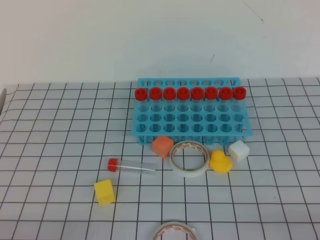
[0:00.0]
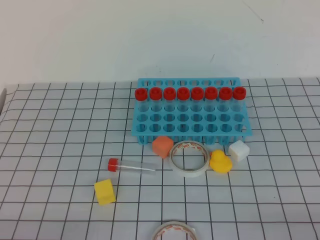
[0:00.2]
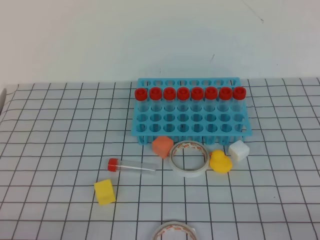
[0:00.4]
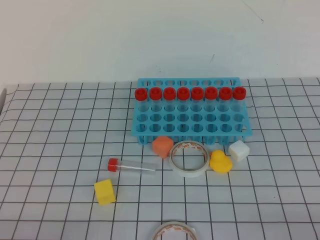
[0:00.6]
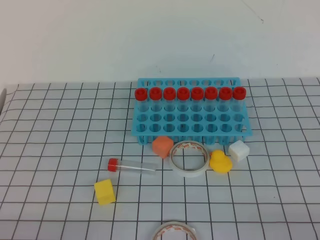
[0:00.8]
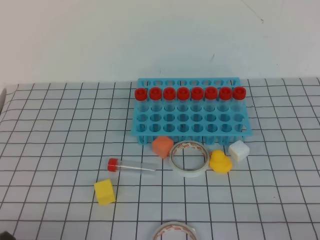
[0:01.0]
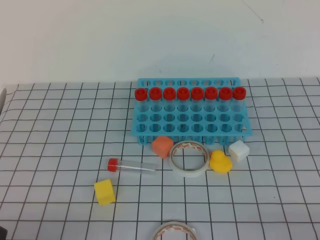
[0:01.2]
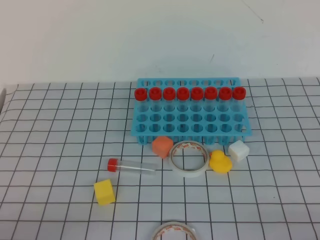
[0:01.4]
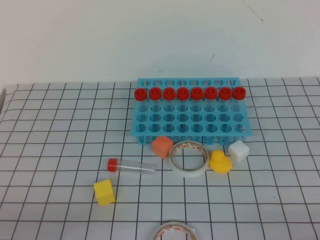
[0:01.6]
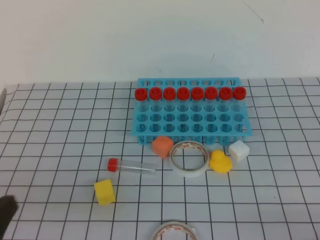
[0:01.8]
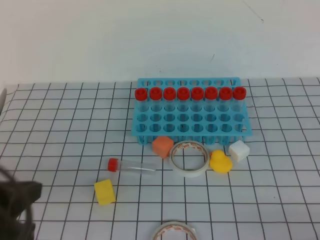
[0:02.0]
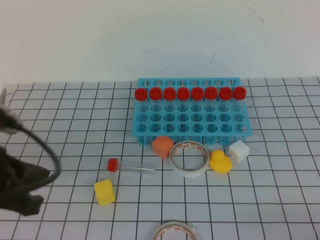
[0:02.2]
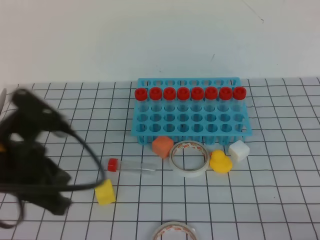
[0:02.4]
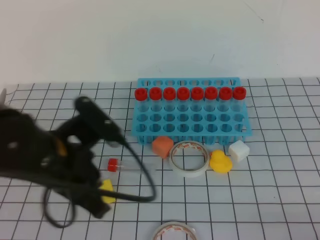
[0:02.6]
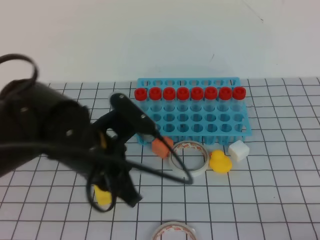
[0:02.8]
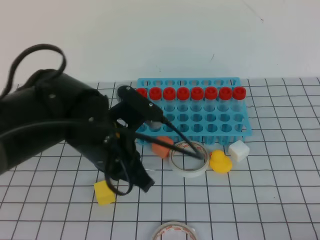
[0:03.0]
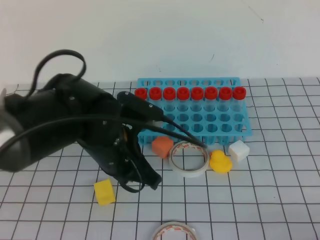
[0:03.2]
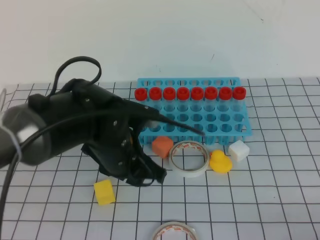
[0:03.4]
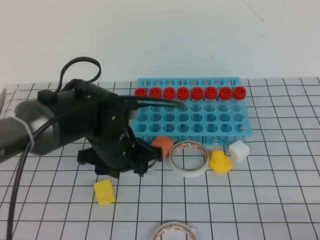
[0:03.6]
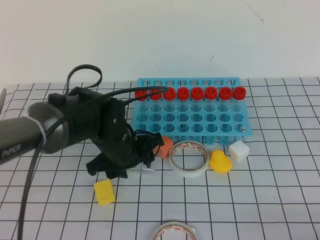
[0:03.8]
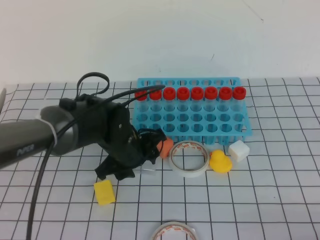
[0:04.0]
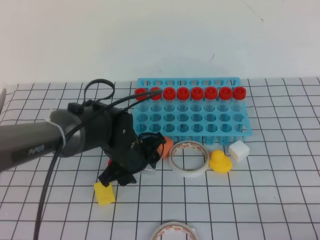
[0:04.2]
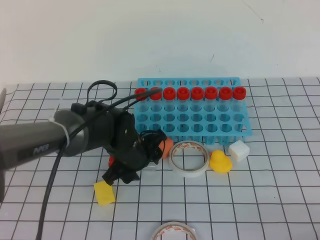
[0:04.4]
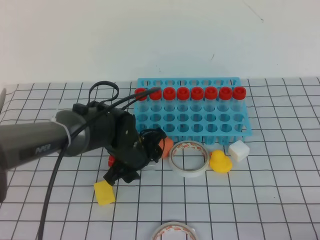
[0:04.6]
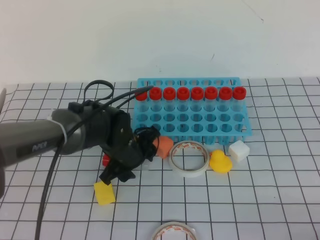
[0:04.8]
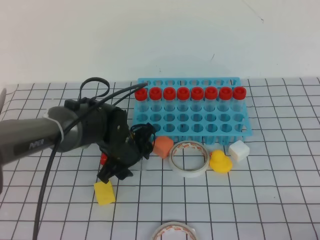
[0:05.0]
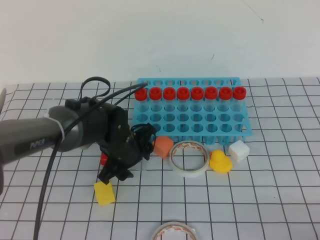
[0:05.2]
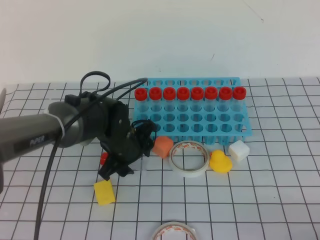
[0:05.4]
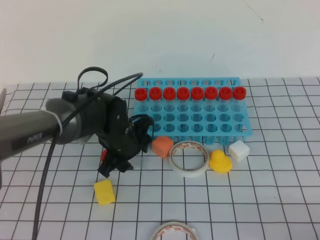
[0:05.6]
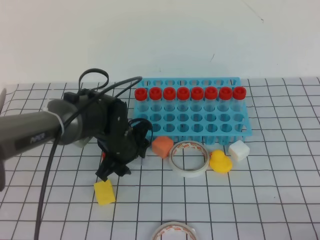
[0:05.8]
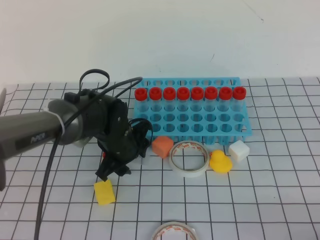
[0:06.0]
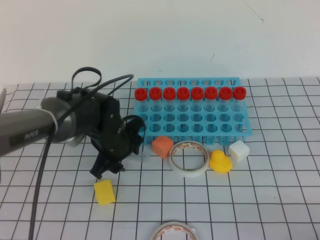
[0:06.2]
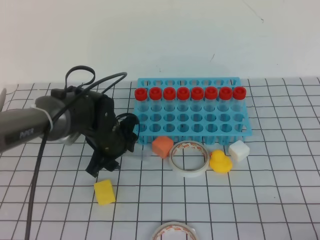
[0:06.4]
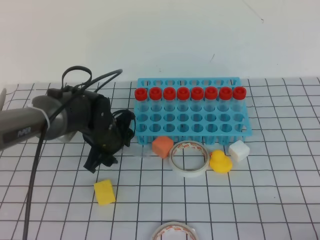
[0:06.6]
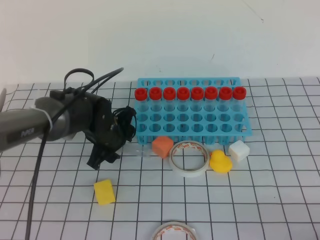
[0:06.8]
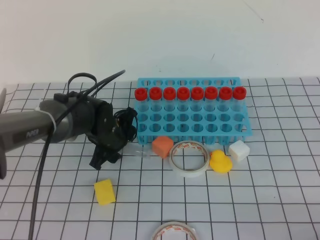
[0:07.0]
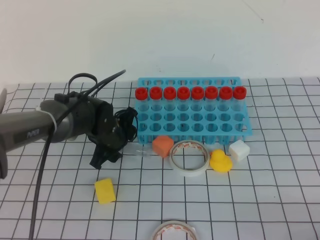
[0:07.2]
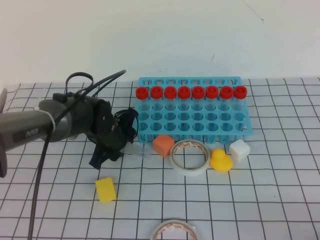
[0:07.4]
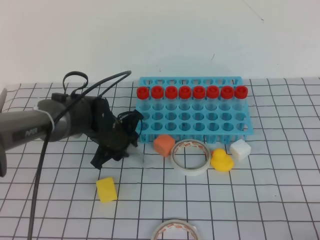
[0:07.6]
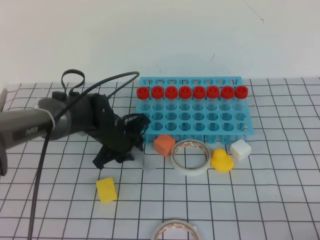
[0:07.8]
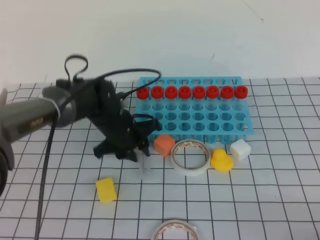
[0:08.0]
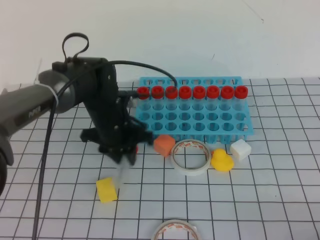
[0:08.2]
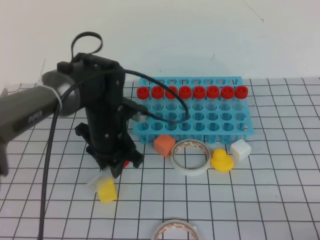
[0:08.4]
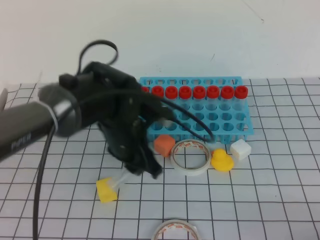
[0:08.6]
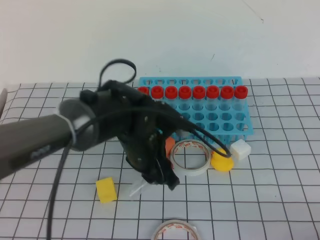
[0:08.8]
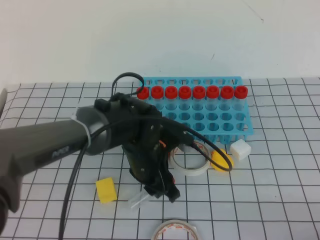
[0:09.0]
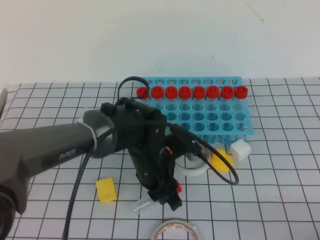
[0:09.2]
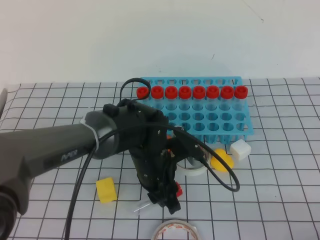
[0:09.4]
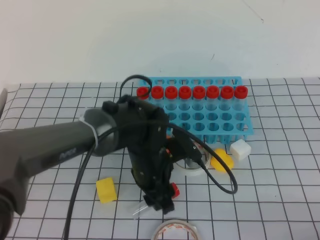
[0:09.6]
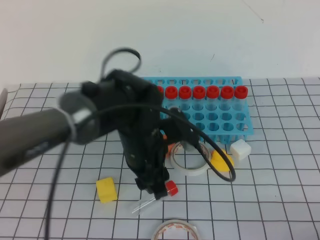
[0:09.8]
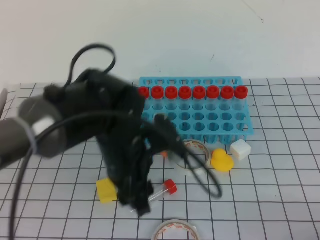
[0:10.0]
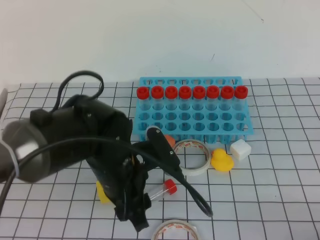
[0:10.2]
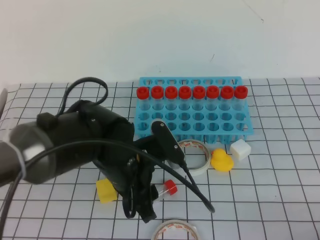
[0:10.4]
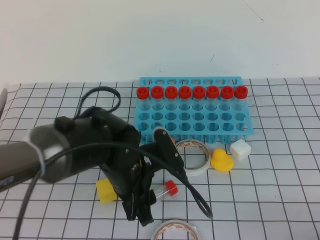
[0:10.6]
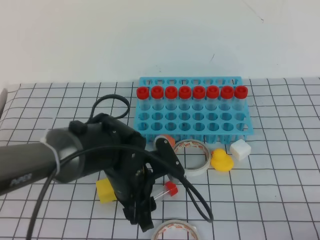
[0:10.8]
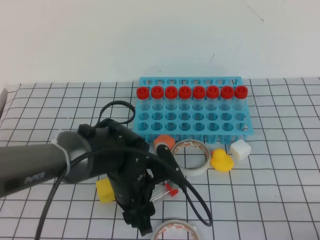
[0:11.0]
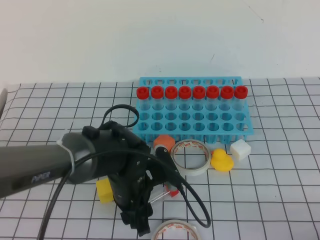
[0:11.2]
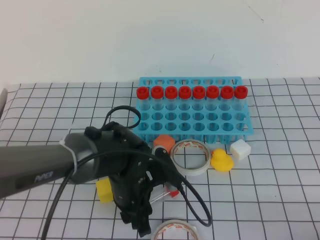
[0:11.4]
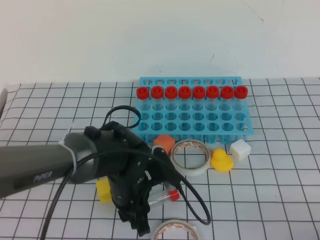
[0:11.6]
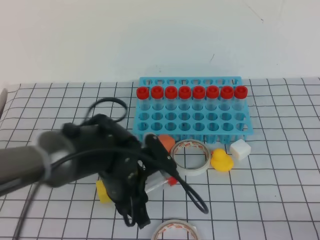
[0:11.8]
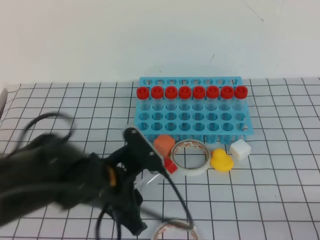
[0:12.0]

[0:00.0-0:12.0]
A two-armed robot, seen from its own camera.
0:01.6 to 0:03.0: The left gripper moves forward and to the right, roughly 25 cm.
0:03.0 to 0:04.4: The left gripper moves downward and forward, approximately 15 cm, and opens its fingers.
0:04.4 to 0:06.0: The grippers make only small movements.
0:06.0 to 0:07.6: The grippers move only a little.
0:07.6 to 0:09.0: The left gripper travels backward and to the right by approximately 10 cm.
0:09.0 to 0:10.4: The left gripper is displaced backward by about 5 cm.

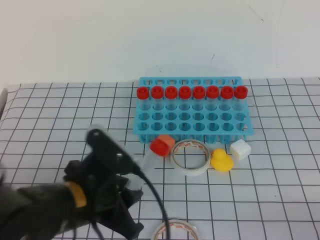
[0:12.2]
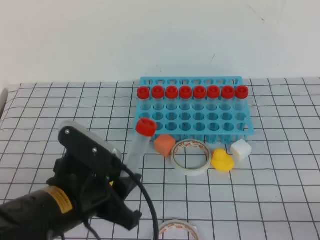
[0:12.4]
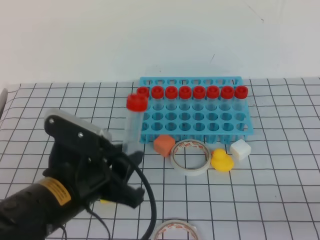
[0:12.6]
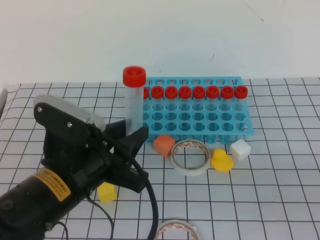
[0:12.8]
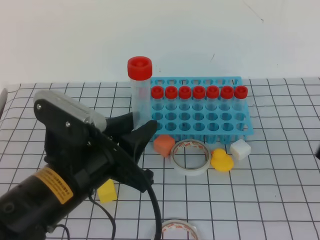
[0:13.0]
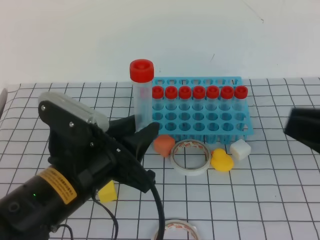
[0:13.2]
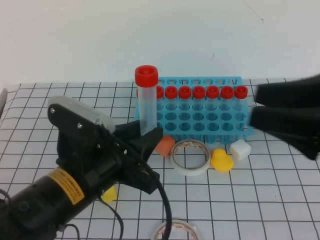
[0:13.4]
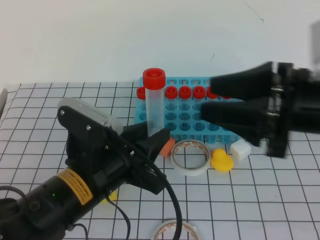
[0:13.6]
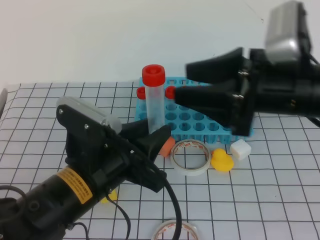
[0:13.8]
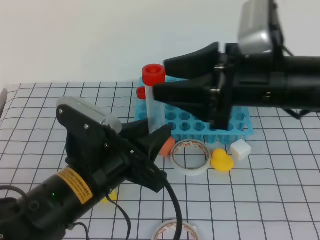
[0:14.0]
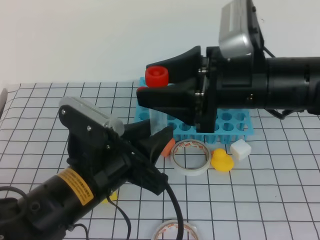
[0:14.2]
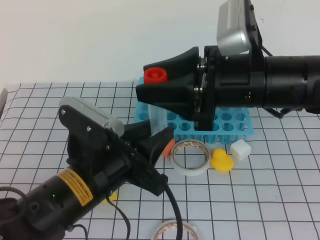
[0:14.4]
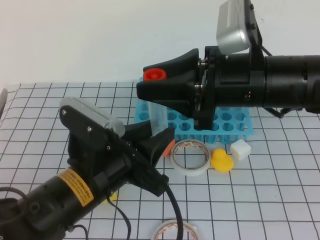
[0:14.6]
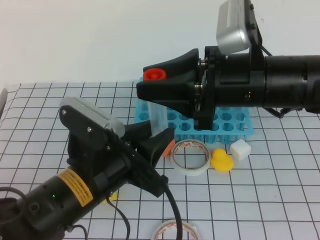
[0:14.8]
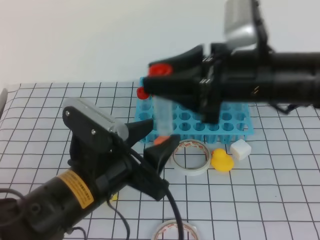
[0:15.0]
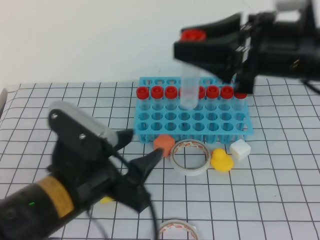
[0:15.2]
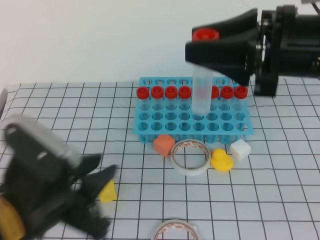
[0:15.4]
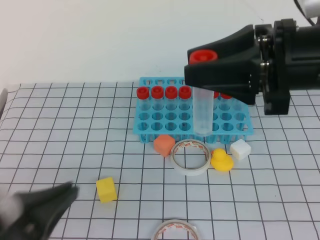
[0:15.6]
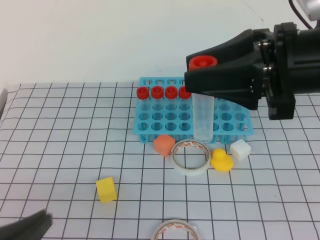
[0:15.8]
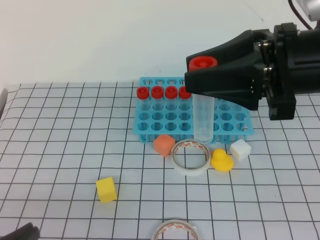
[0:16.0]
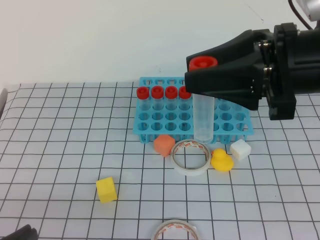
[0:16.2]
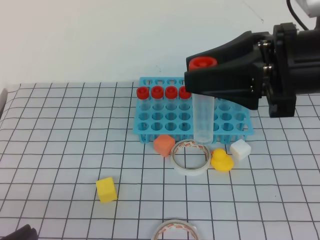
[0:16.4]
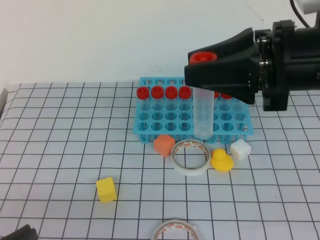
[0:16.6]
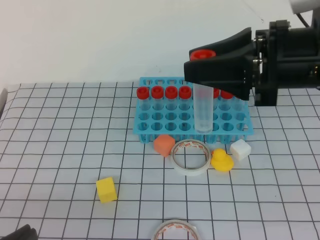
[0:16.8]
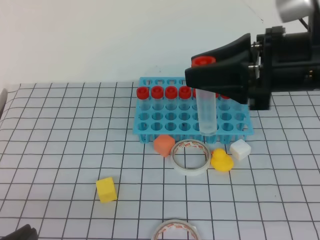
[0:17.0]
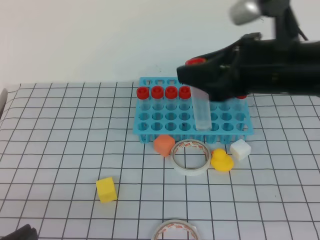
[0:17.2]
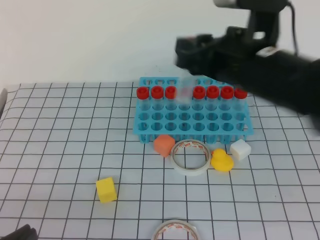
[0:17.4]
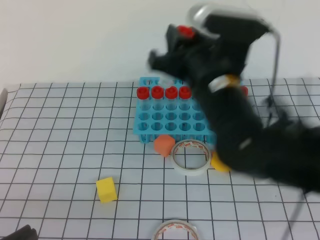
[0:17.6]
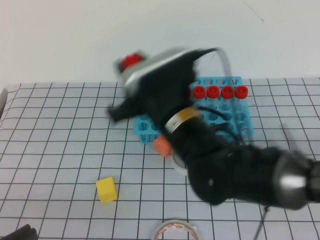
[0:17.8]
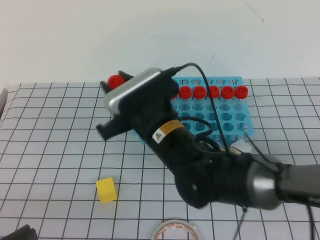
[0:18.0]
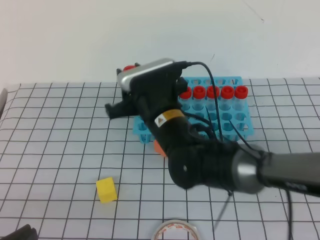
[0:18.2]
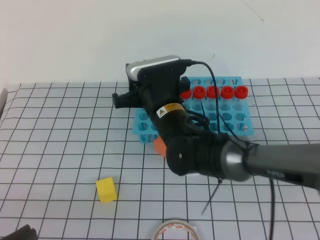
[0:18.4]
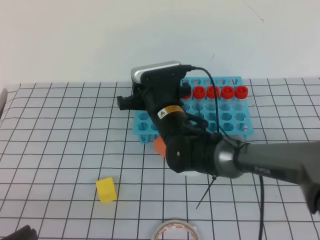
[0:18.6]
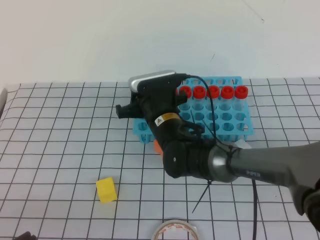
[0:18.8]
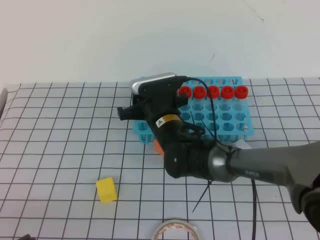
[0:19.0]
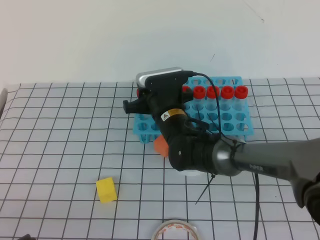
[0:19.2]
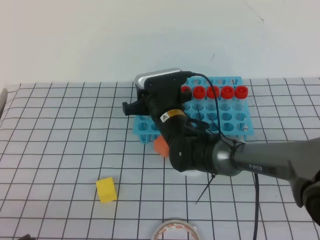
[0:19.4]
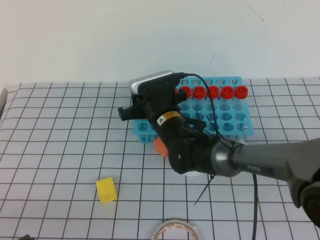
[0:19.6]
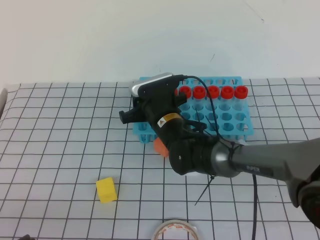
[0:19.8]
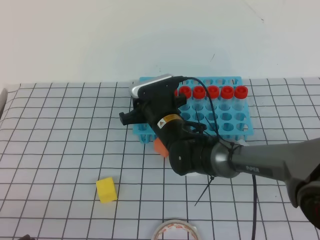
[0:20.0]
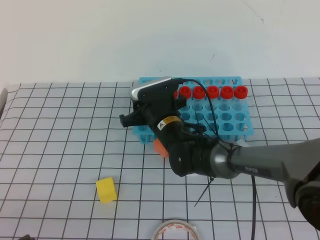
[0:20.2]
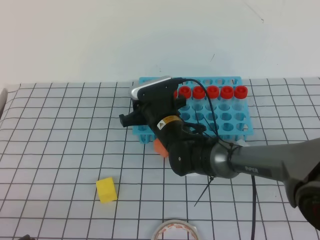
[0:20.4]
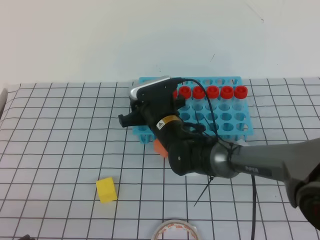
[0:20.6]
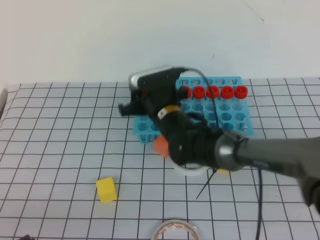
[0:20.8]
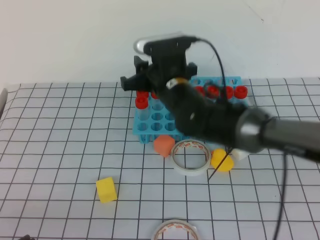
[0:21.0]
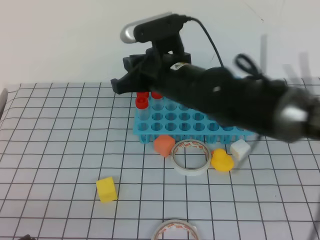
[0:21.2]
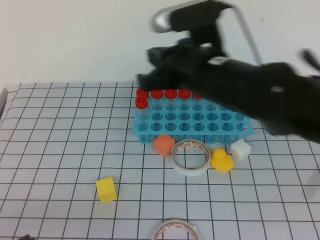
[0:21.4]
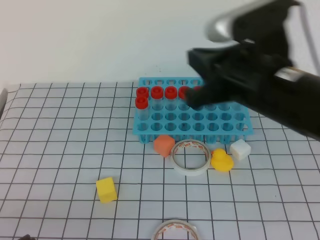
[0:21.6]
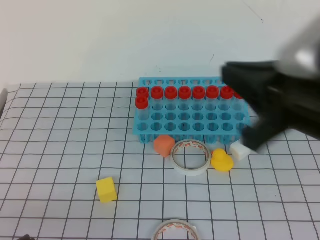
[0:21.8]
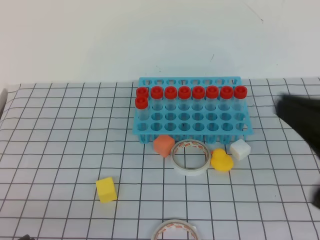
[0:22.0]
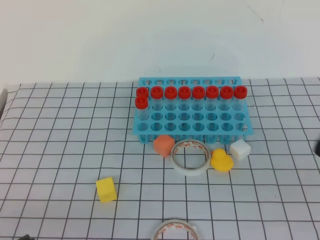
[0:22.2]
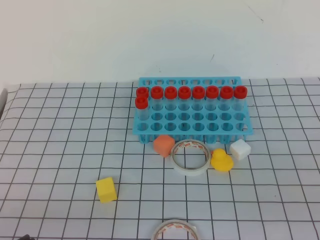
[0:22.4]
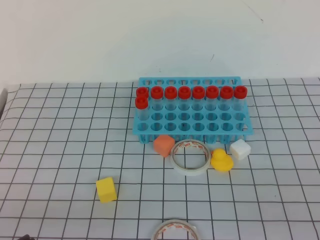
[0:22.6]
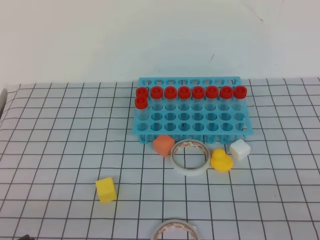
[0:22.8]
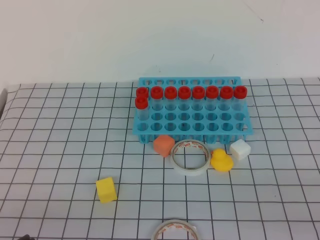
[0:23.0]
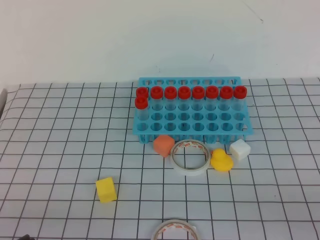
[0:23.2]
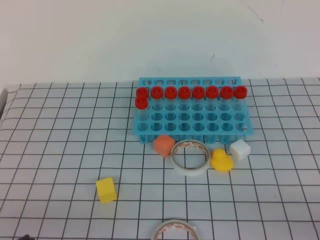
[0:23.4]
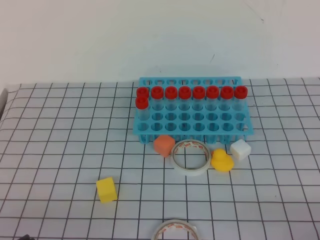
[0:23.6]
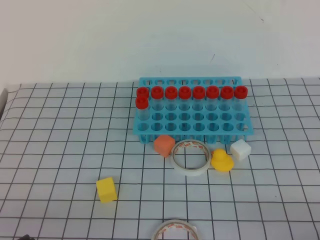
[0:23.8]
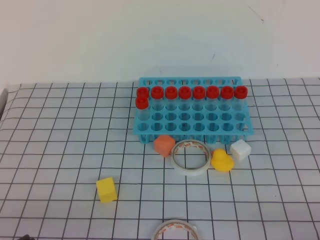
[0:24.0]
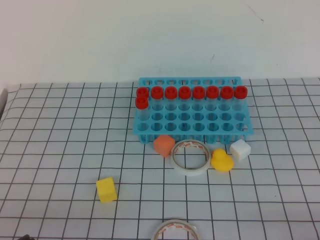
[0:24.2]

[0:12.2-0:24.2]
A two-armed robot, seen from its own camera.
0:12.2 to 0:13.8: The right gripper goes some 30 cm forward, to the left and upward, and opens.
0:13.8 to 0:15.2: The left gripper opens, while the right gripper closes.
0:15.2 to 0:16.6: The left gripper goes some 20 cm backward and to the left, and closes its fingers.
0:16.6 to 0:18.2: The right gripper moves to the left, downward and forward, some 25 cm.
0:18.2 to 0:19.8: The right gripper shifts about 10 cm downward and forward.
0:19.8 to 0:21.2: The right gripper travels upward by roughly 15 cm.
0:21.2 to 0:22.6: The right gripper goes approximately 40 cm backward and to the right.
